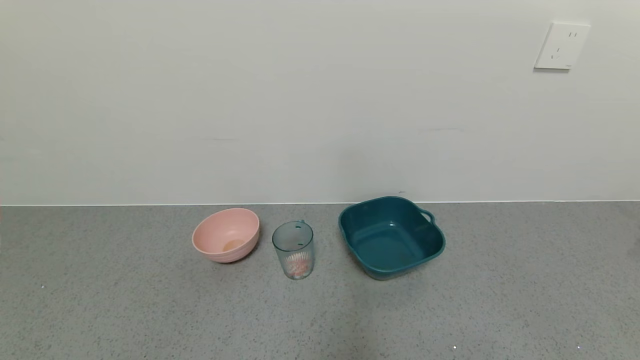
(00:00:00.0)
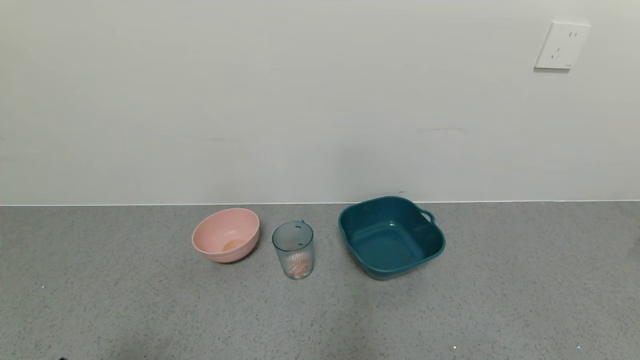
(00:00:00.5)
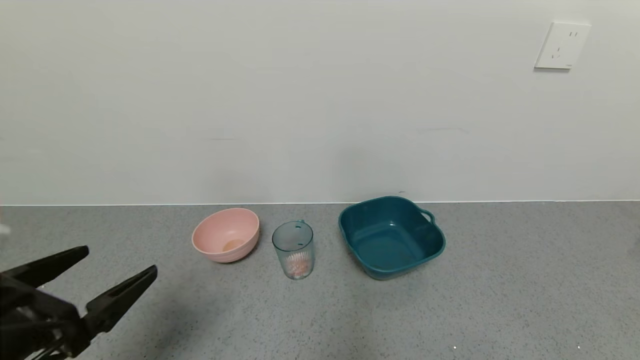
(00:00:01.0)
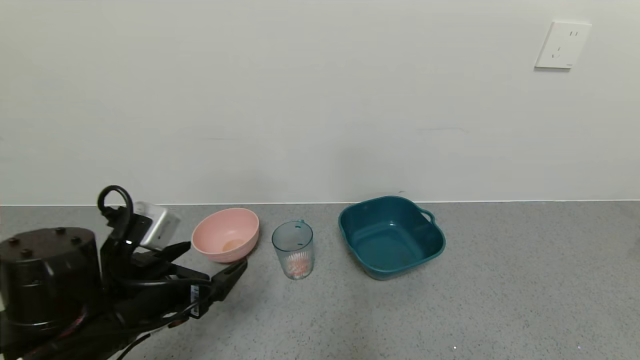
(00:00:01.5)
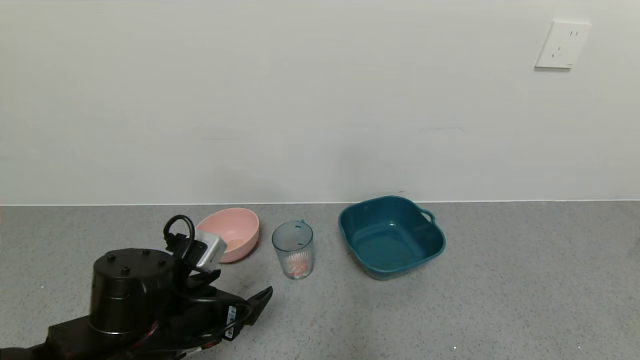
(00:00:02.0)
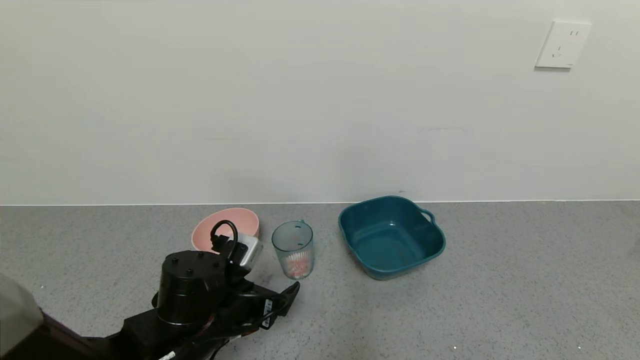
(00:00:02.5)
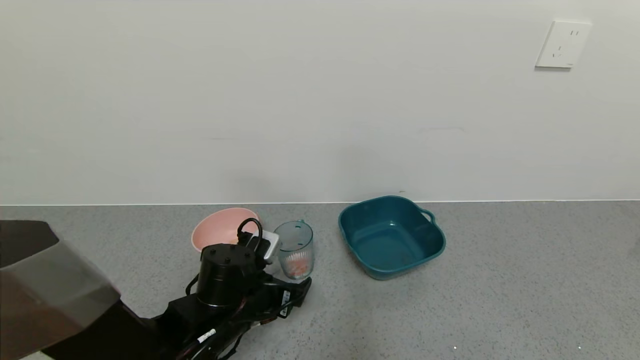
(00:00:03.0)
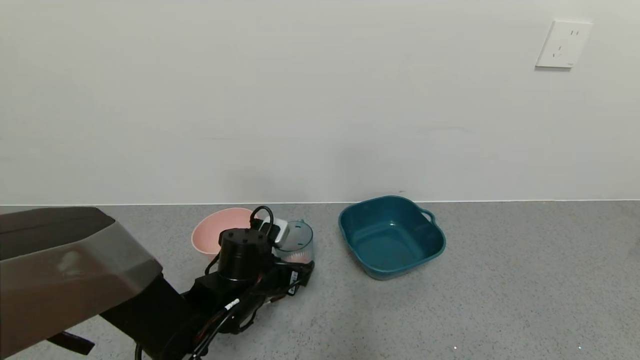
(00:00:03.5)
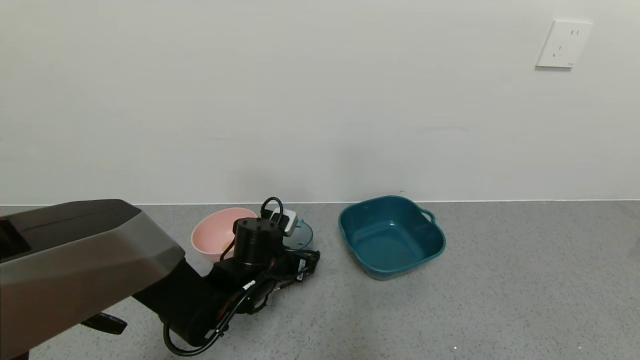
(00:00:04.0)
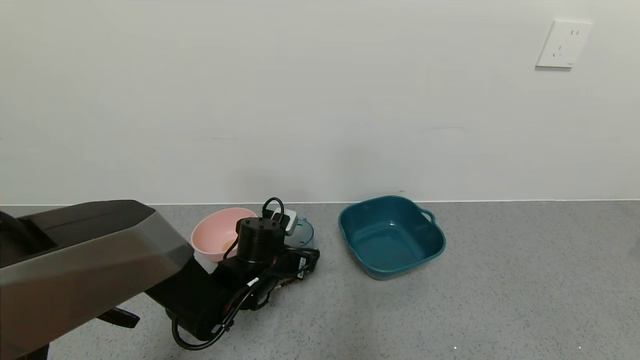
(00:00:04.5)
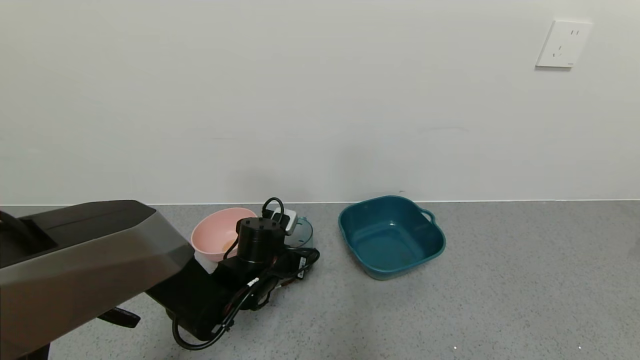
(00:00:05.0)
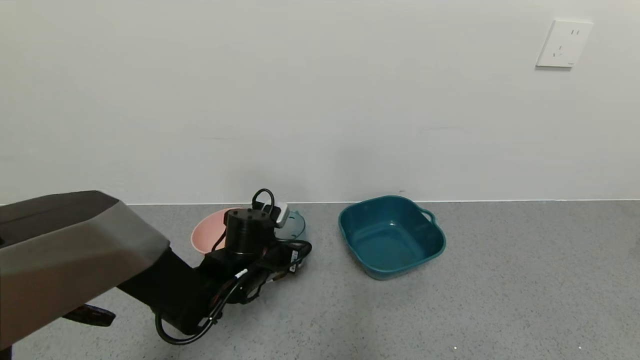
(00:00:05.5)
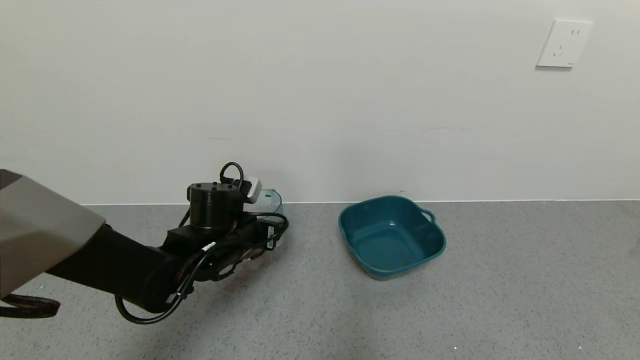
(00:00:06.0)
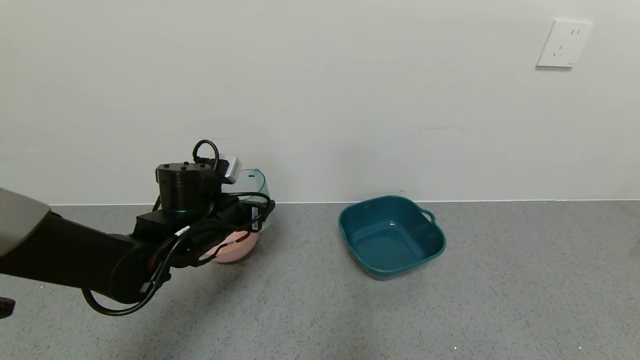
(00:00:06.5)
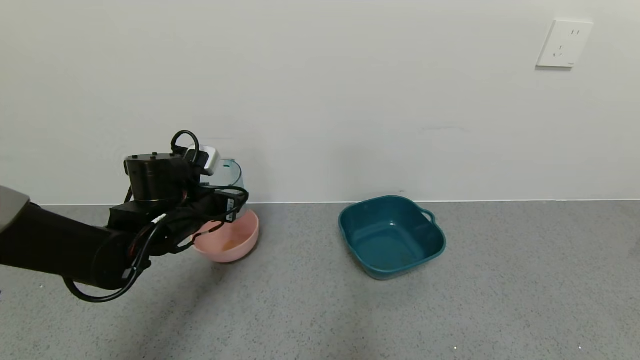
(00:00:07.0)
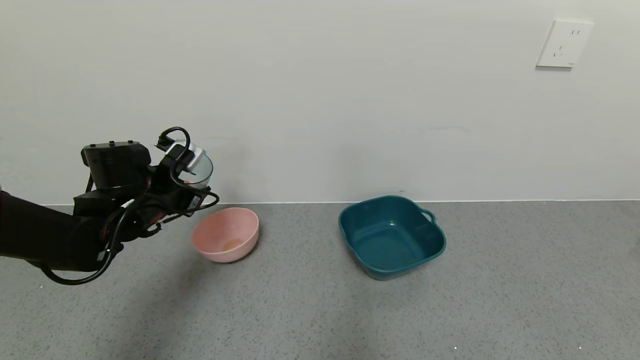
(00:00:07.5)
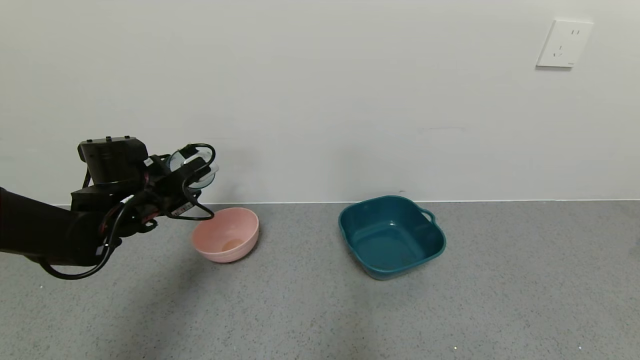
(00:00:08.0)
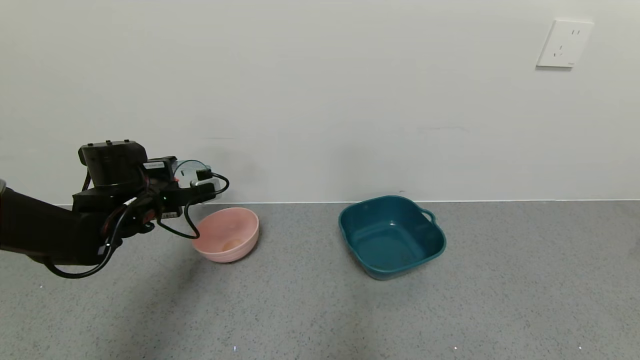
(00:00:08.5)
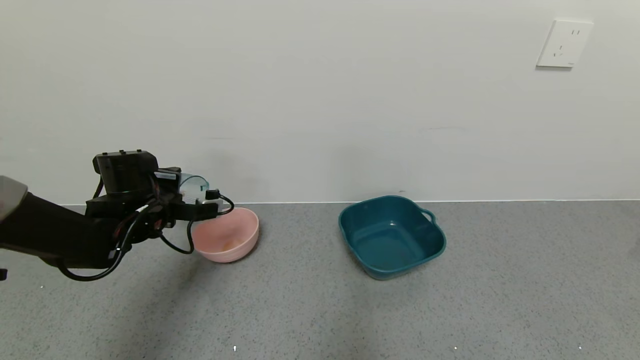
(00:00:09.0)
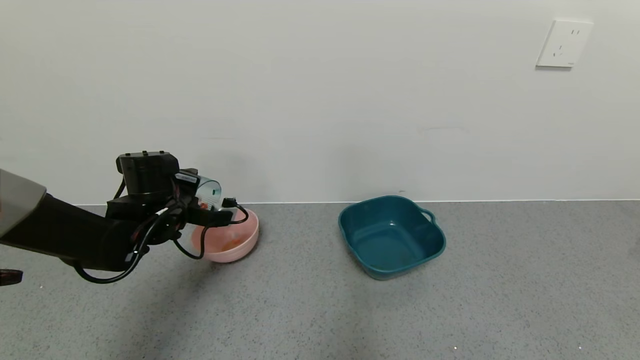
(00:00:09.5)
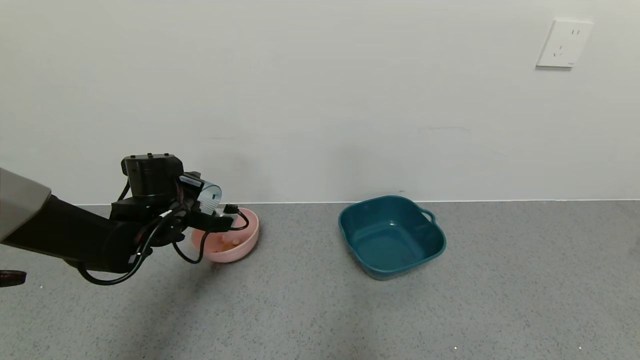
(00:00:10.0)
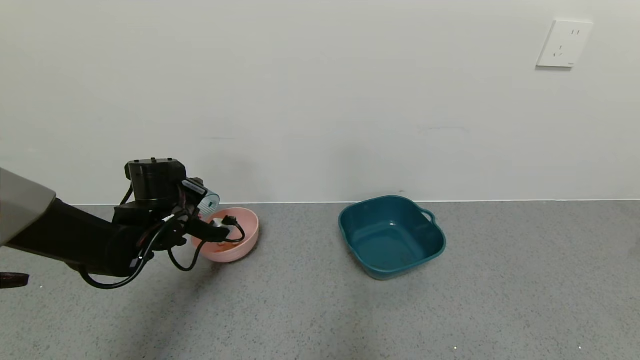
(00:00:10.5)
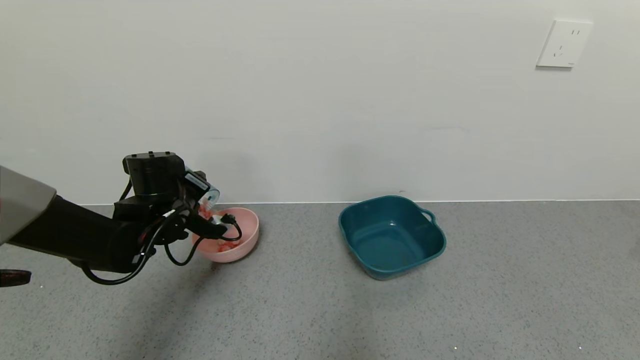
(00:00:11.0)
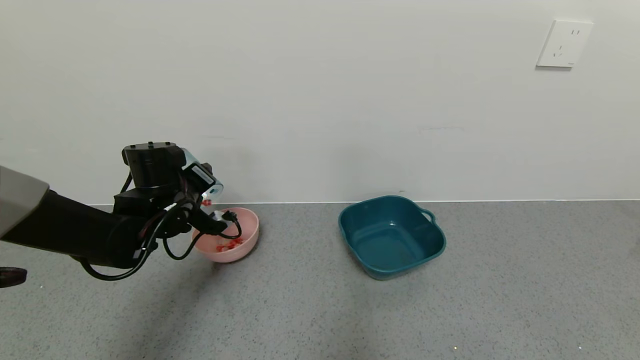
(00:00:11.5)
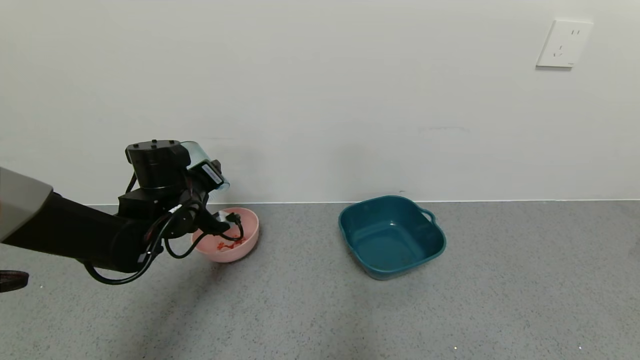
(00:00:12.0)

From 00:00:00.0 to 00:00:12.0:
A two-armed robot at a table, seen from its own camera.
Task of the whole recording: use a gripper to pick up the cup and pour the solid into a bowl or tray.
Step, from 00:00:00.0 to 00:00:05.0: Grasp the glass of shrimp with the left gripper.
From 00:00:00.0 to 00:00:02.0: The left gripper travels forward and to the right by about 25 cm.
From 00:00:02.0 to 00:00:04.0: The left gripper is displaced forward, to the right and downward by roughly 15 cm.
From 00:00:04.0 to 00:00:06.0: The left gripper shifts roughly 5 cm upward, and closes its fingers.
From 00:00:06.0 to 00:00:08.0: The left gripper travels to the left and upward by roughly 15 cm.

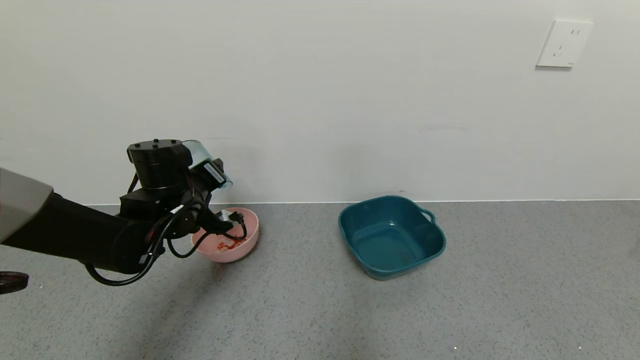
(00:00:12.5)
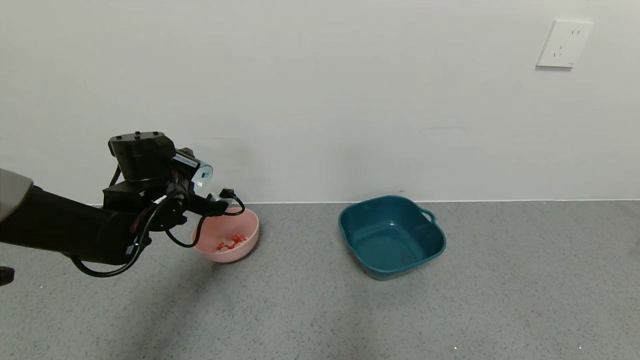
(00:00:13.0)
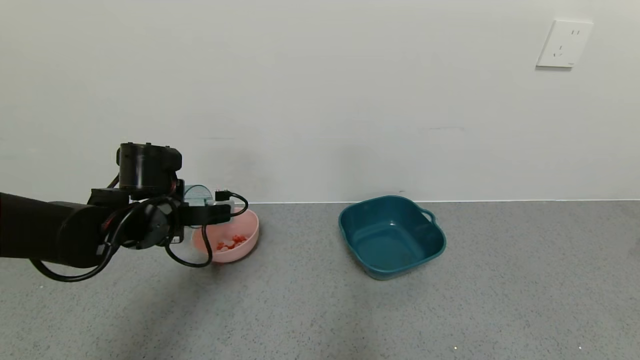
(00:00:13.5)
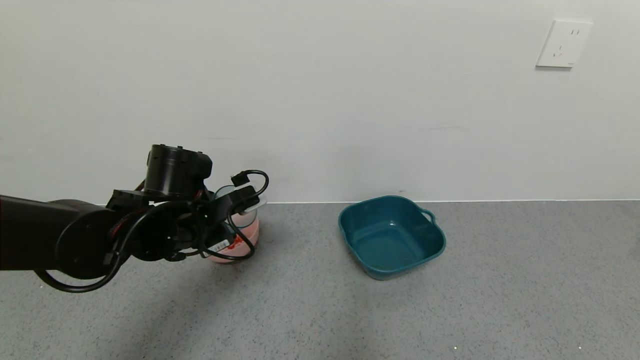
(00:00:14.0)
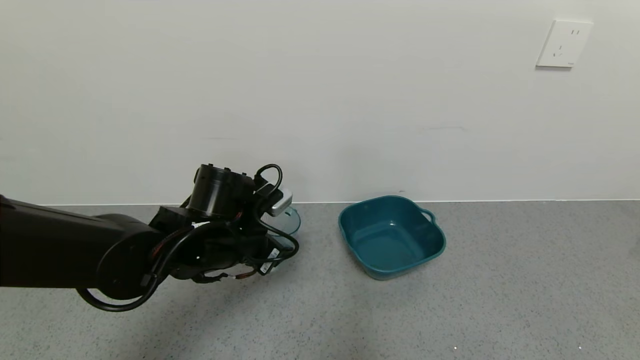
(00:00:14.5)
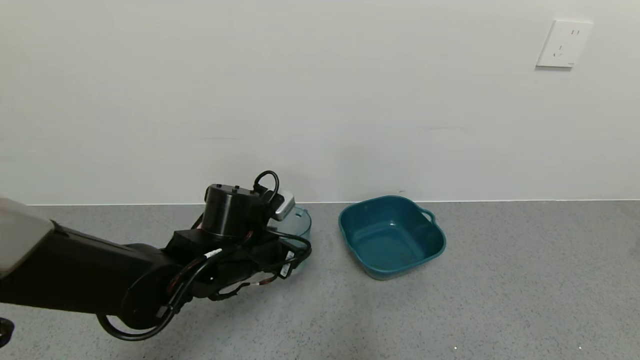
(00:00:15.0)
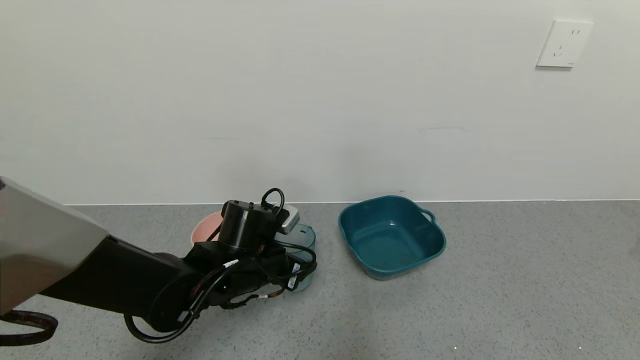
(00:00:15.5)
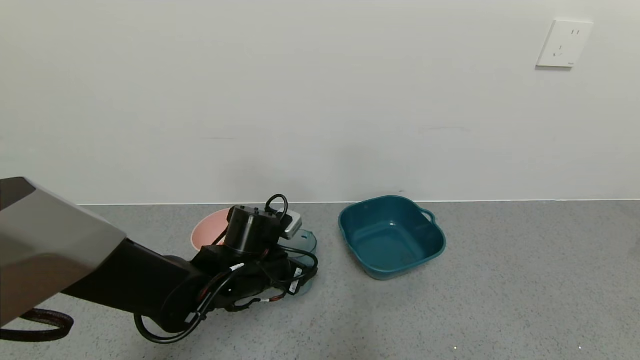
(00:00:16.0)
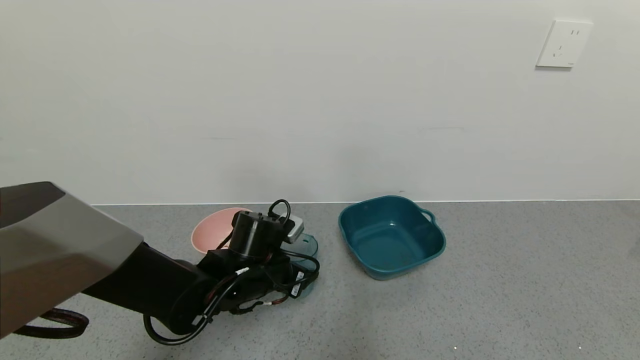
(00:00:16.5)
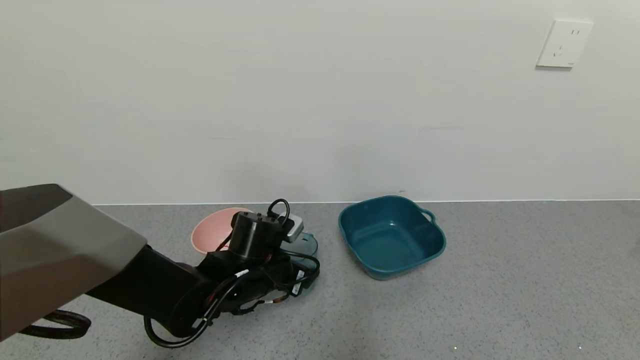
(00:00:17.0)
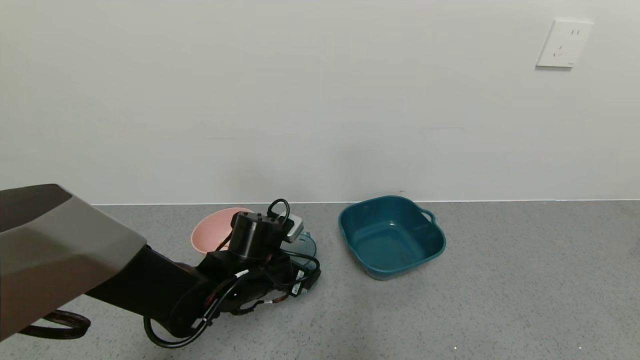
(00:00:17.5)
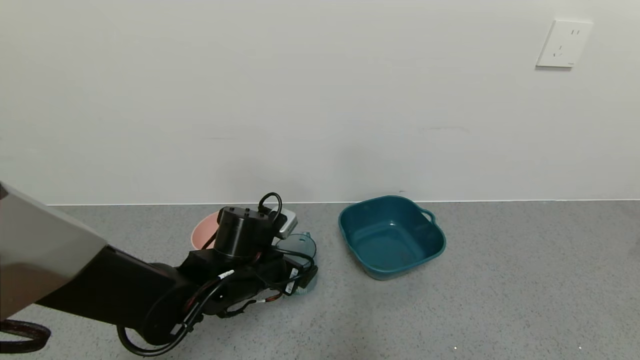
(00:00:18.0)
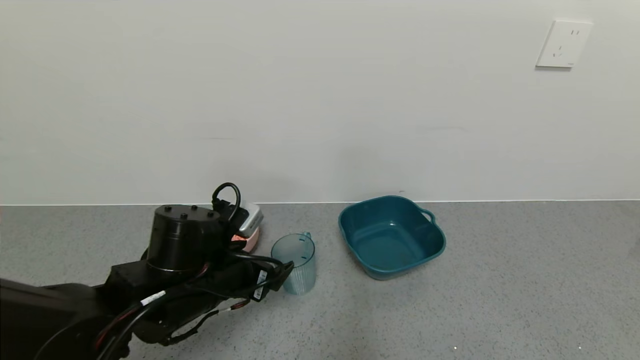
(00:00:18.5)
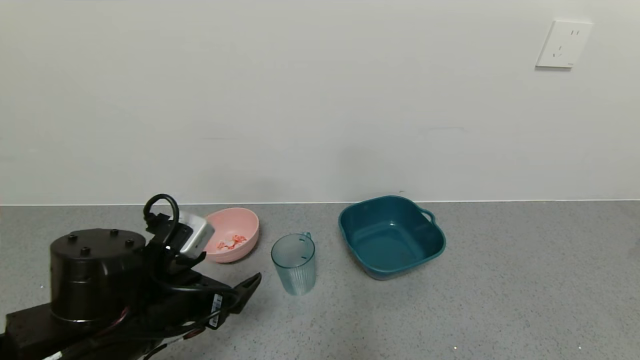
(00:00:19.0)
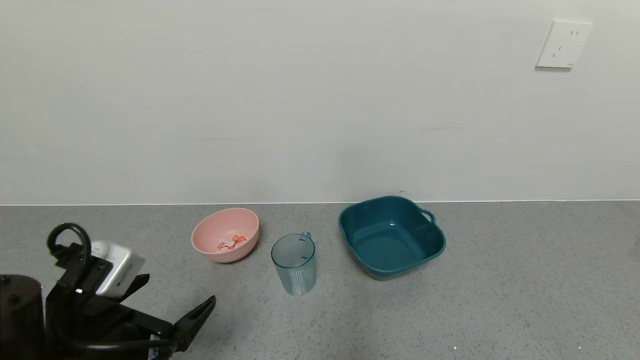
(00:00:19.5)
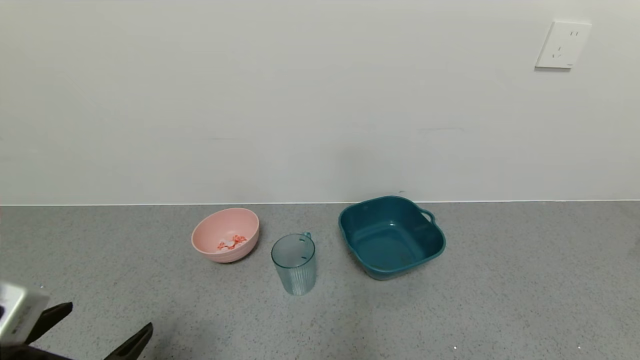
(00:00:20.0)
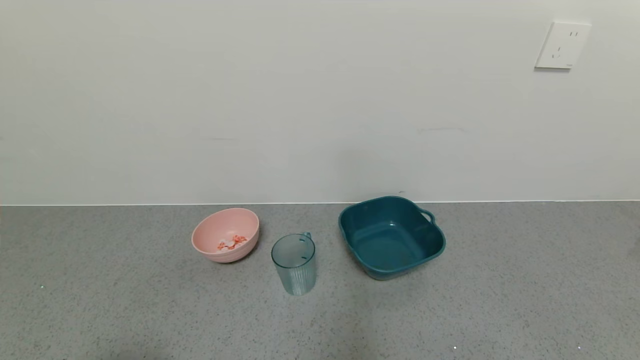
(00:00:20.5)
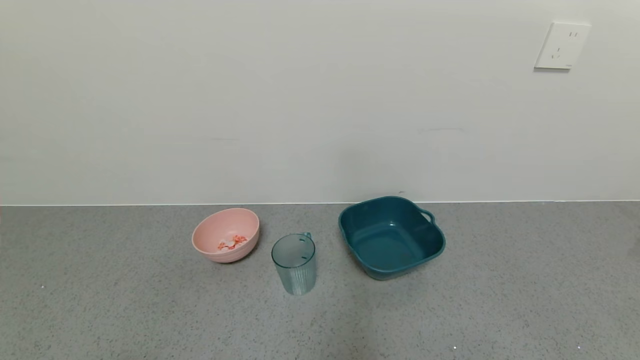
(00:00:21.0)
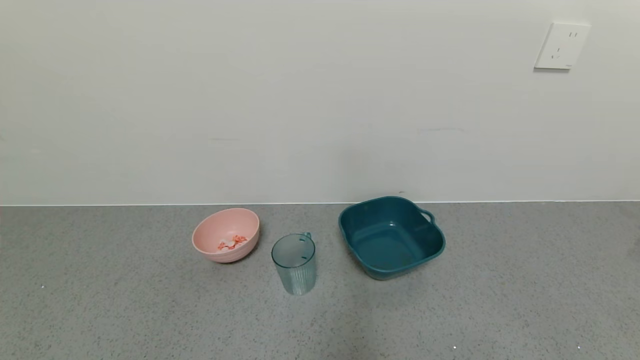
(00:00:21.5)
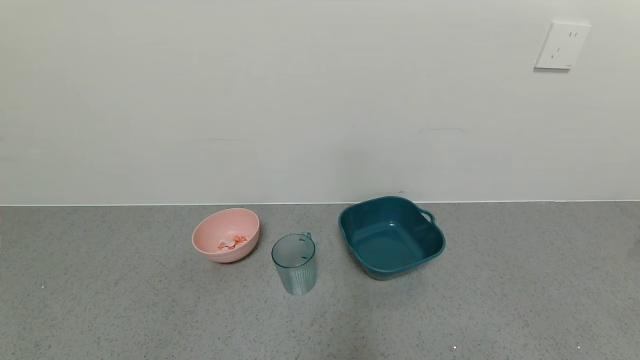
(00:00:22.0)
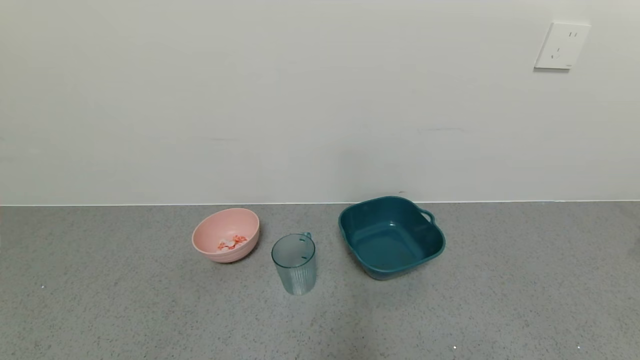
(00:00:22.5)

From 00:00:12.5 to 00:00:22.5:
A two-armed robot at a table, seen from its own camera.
Task of the whole recording: use a gripper to pick up the cup and pour the solid into a bowl or tray.
Step, from 00:00:13.0 to 00:00:18.0: Place the glass cup with the left gripper.
From 00:00:12.5 to 00:00:14.5: The left gripper goes some 10 cm to the right and backward.
From 00:00:14.5 to 00:00:16.5: The left gripper shifts roughly 5 cm downward.
From 00:00:16.5 to 00:00:18.5: The left gripper heads backward and upward, covering approximately 10 cm, and opens.
From 00:00:18.5 to 00:00:20.5: The left gripper heads backward and to the left, covering roughly 25 cm.
